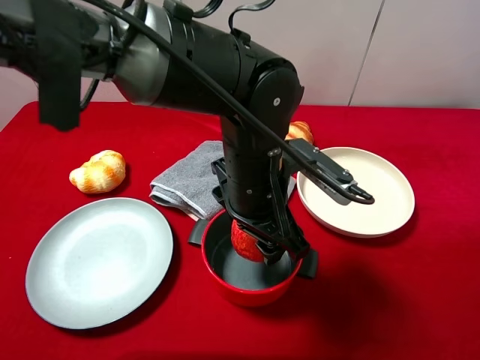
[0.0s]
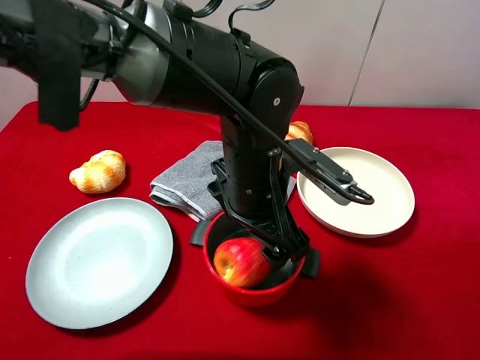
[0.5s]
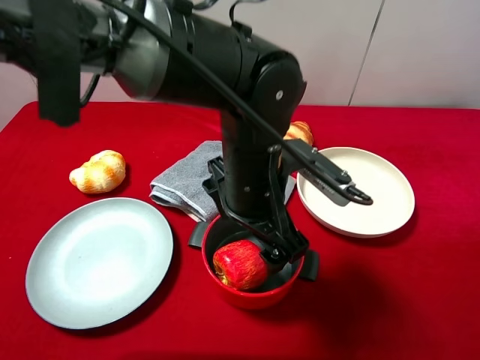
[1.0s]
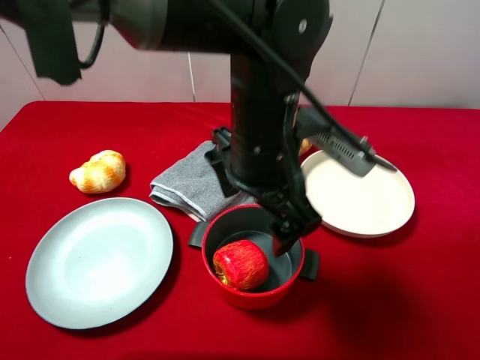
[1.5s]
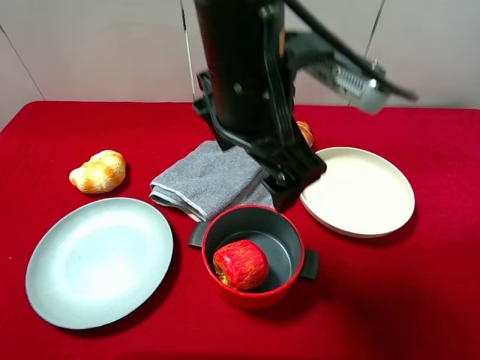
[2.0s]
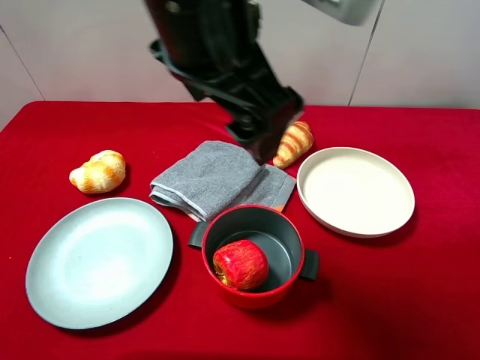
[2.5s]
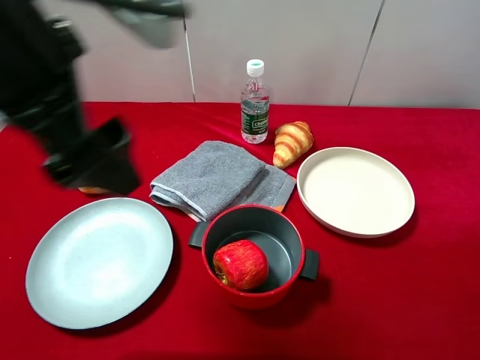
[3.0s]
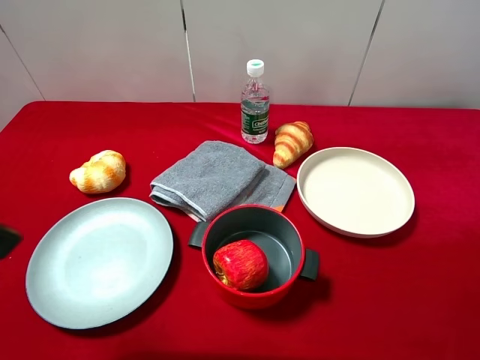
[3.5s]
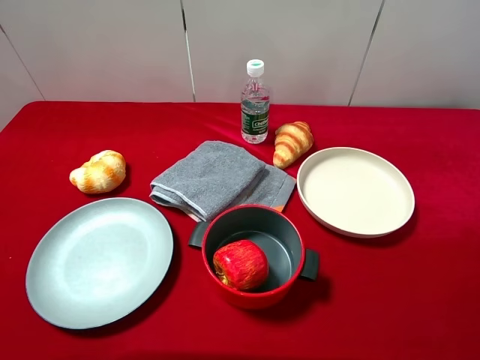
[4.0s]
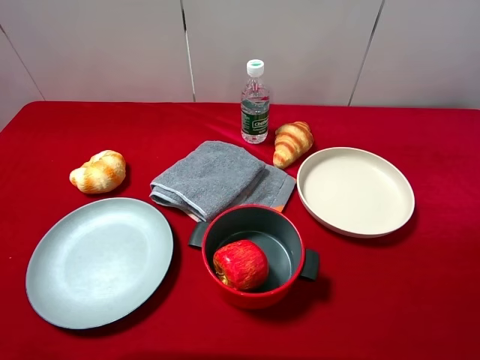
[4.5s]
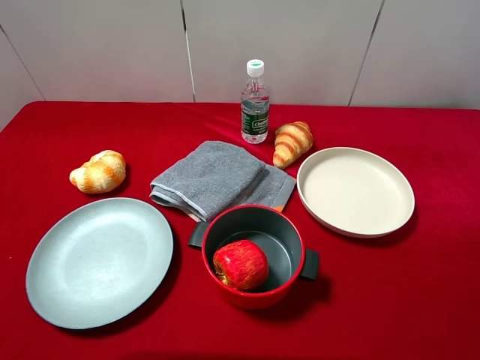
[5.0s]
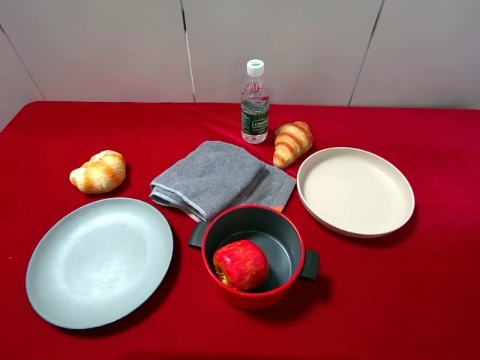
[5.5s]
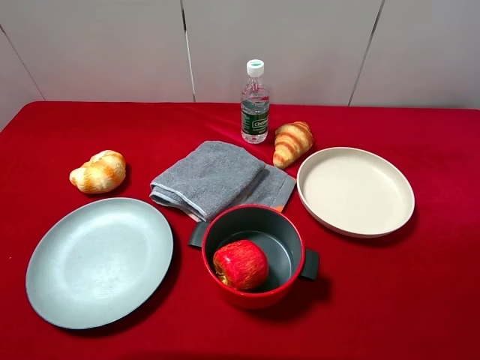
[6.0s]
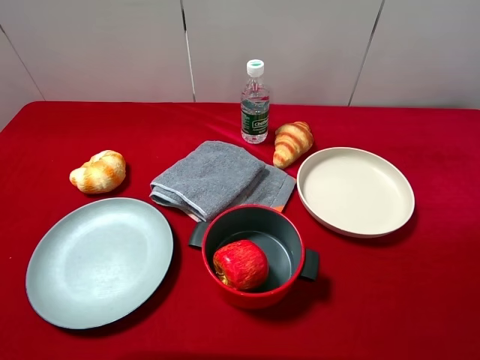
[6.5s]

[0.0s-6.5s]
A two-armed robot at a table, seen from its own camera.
Task of the whole recording: pick up an item with a gripper and place it in a random container on the desktop.
0.0s to 2.0s: The left gripper goes about 10 cm upward, and opens.
2.0s to 4.5s: The left gripper travels to the left and backward by about 35 cm.
